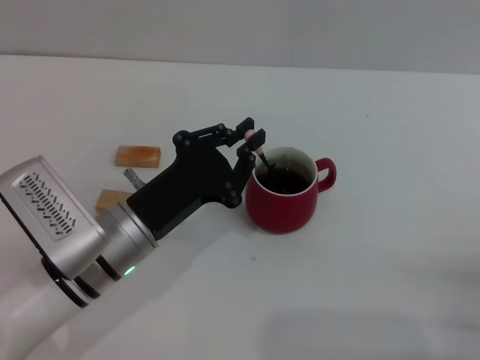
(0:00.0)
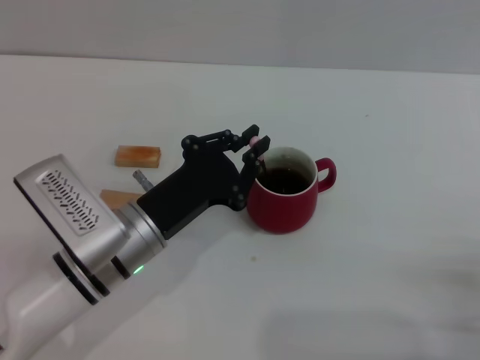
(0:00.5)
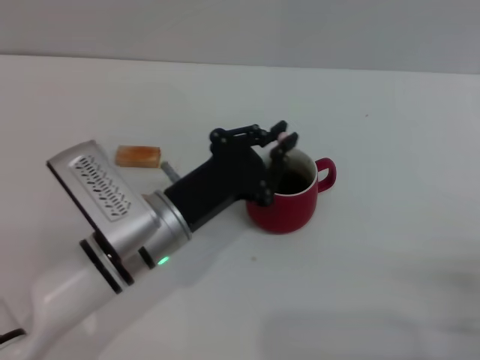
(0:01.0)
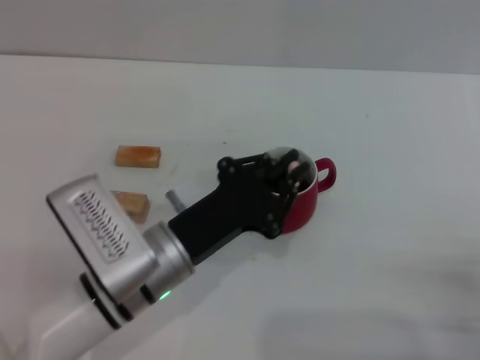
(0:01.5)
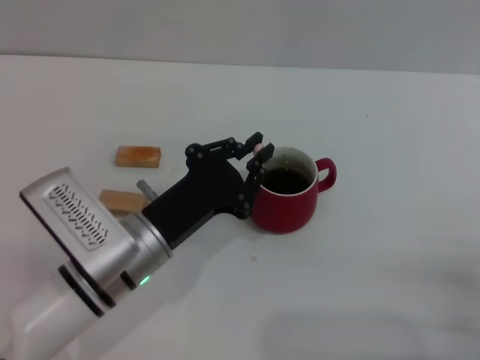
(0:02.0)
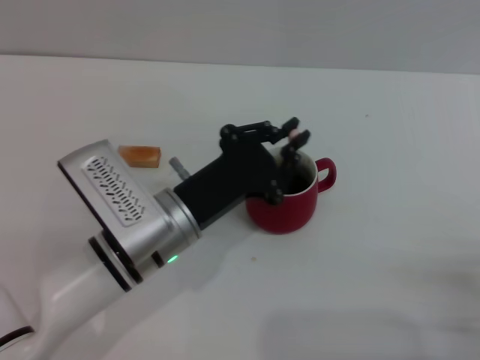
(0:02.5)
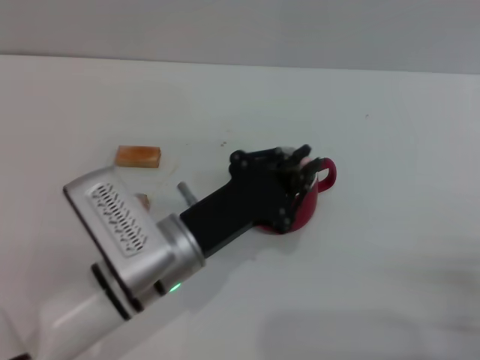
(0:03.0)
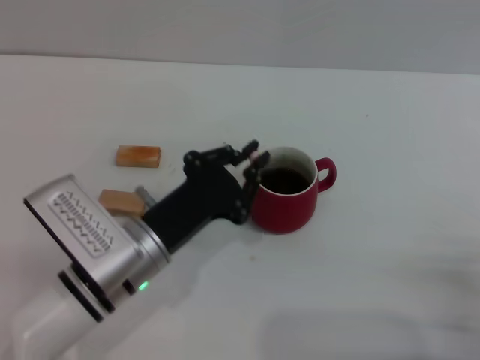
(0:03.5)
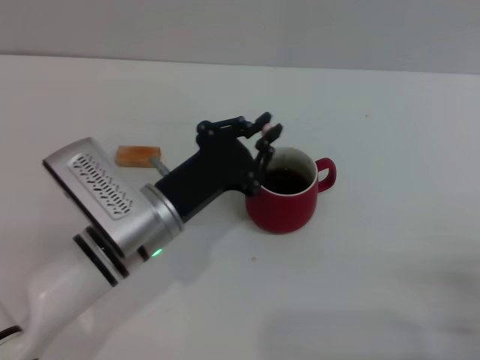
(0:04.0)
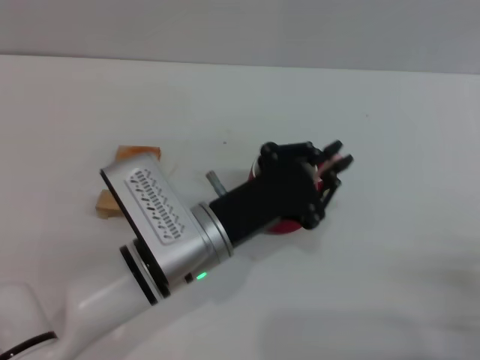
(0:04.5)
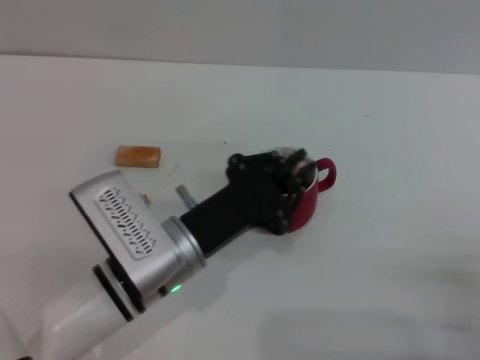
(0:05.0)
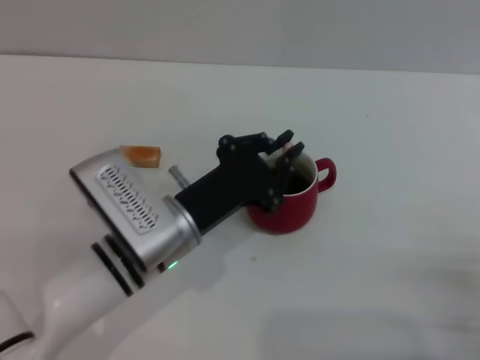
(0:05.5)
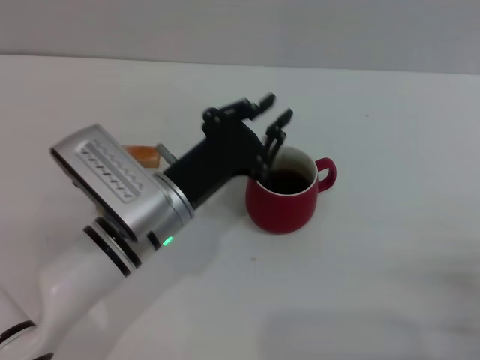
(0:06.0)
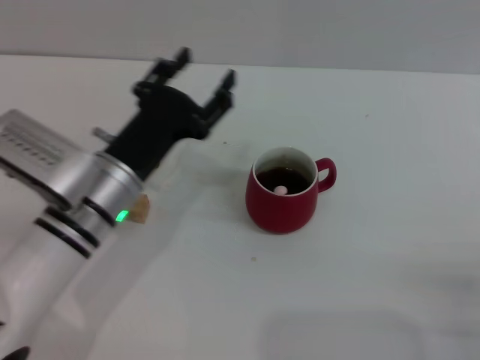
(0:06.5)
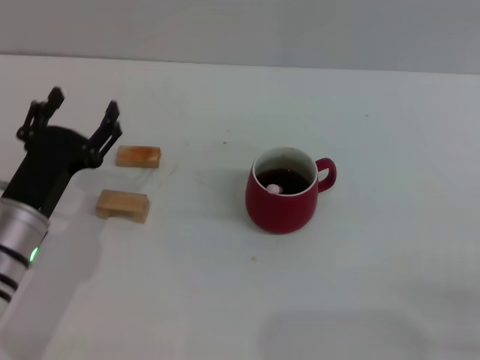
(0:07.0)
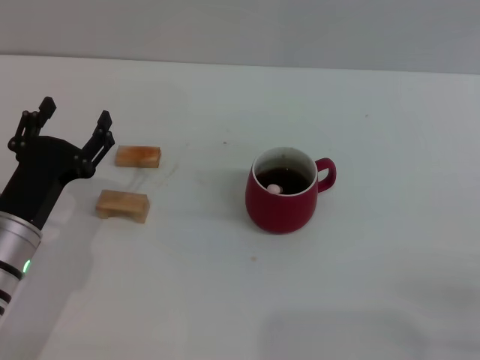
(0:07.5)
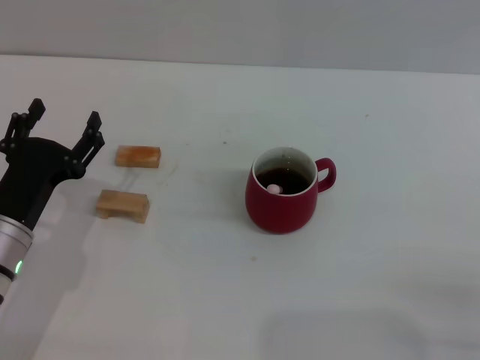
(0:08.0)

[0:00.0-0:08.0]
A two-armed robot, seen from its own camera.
Task of the whole recording: Move the red cup to the center, lift the pink spoon, stir it three times in the cup, and put the spoon into the cup.
Step, 0:00.0 to 0:06.5: Stir the coffee in the cup with the left gripper.
0:00.0 to 0:04.0: The grippers move only a little.
0:04.0 to 0:06.0: There are only small adjustments of the grippers.
0:06.0 to 0:08.0: The left gripper moves to the left, approximately 15 cm, and opens up.

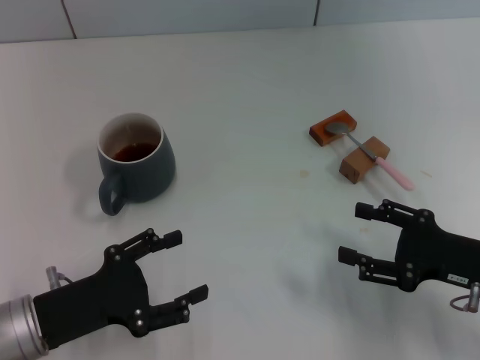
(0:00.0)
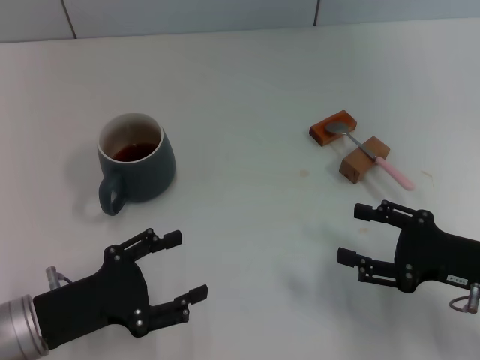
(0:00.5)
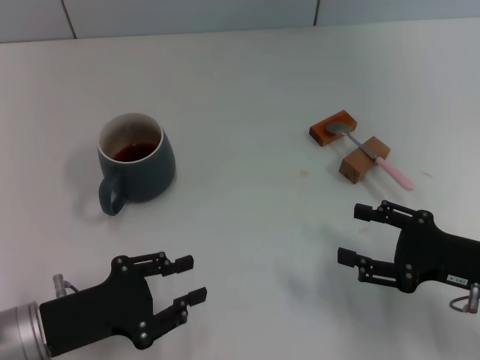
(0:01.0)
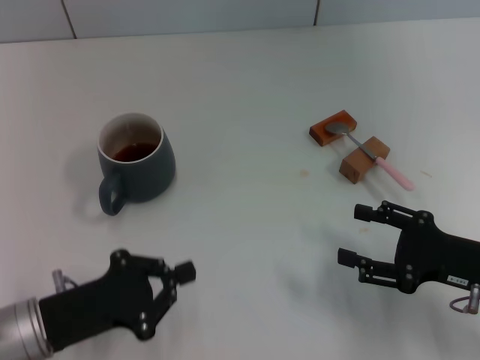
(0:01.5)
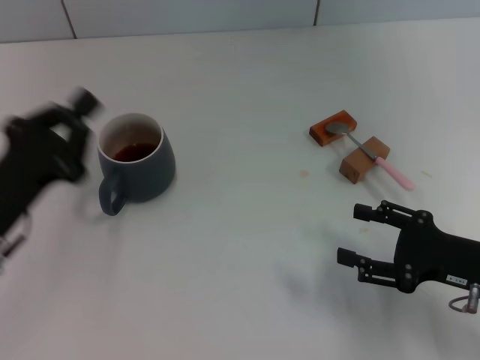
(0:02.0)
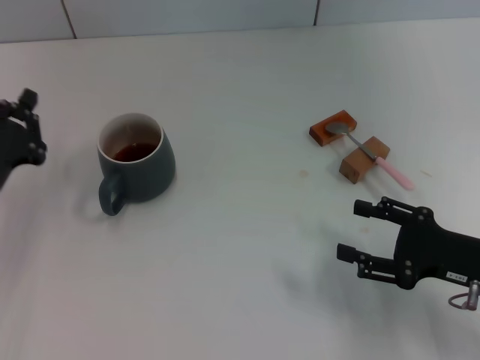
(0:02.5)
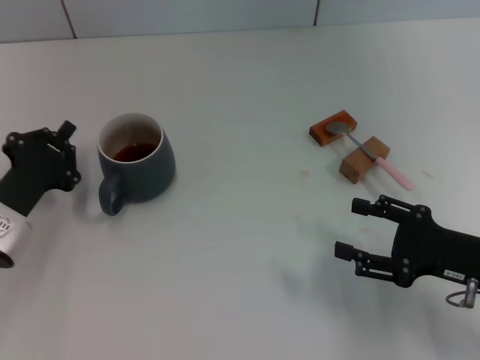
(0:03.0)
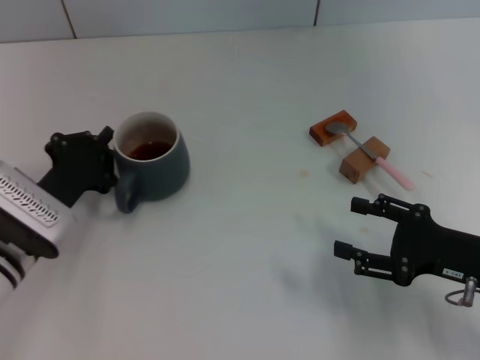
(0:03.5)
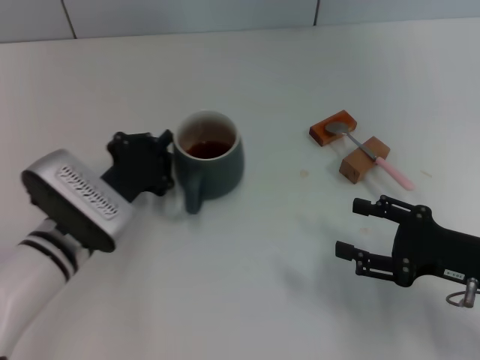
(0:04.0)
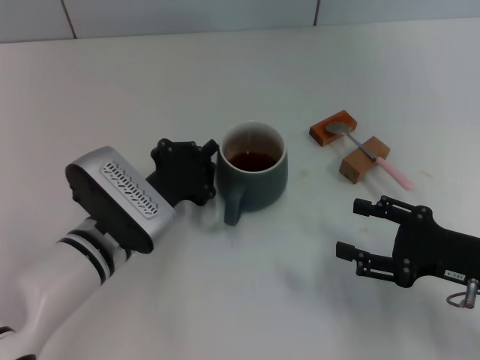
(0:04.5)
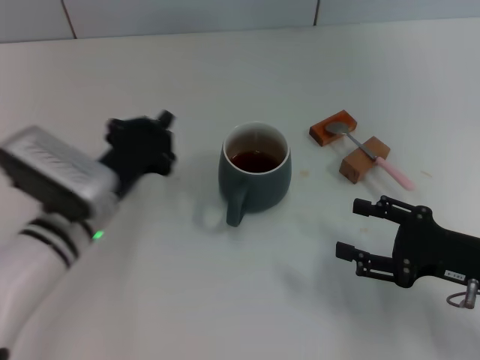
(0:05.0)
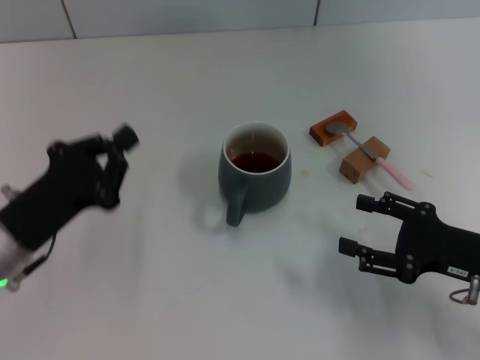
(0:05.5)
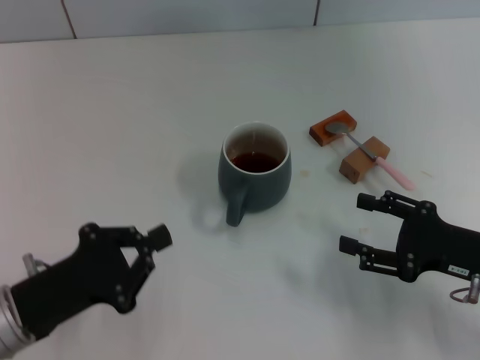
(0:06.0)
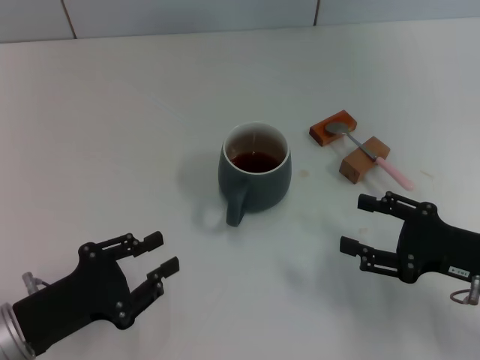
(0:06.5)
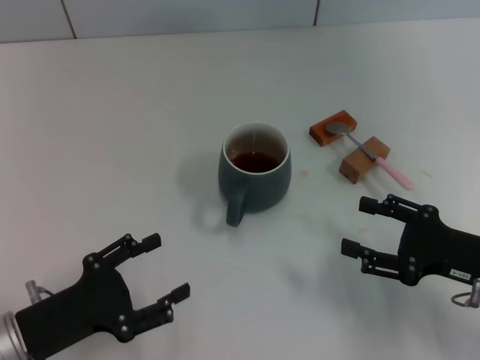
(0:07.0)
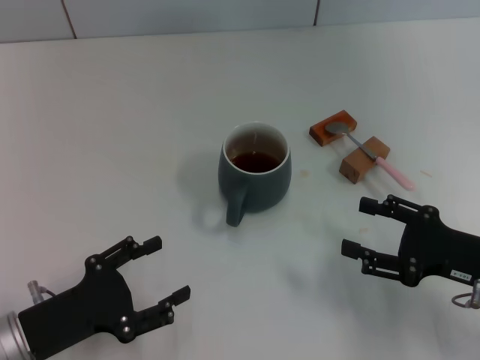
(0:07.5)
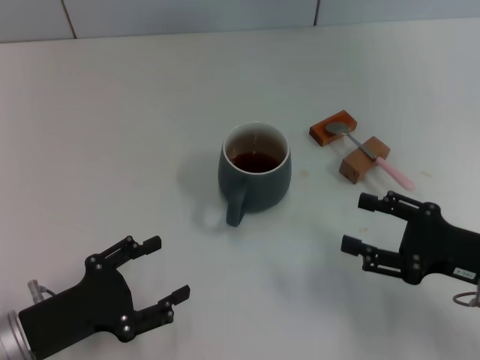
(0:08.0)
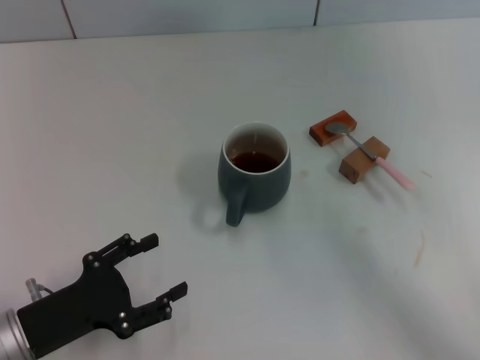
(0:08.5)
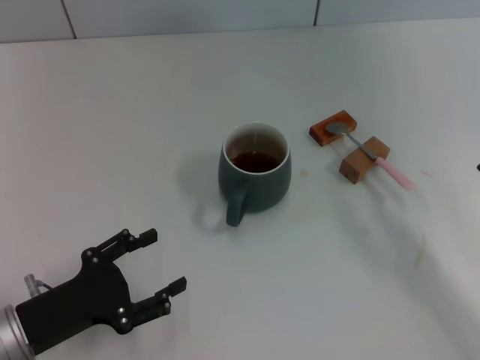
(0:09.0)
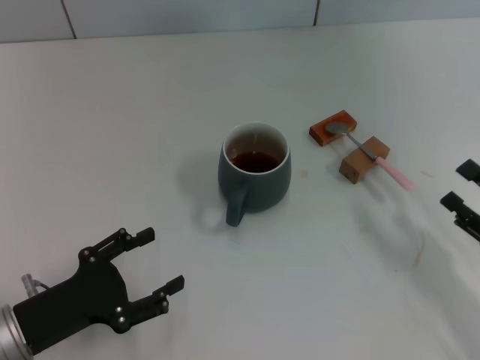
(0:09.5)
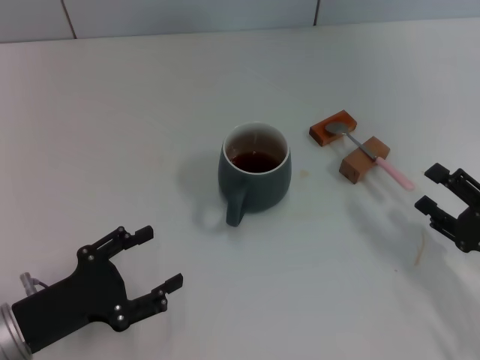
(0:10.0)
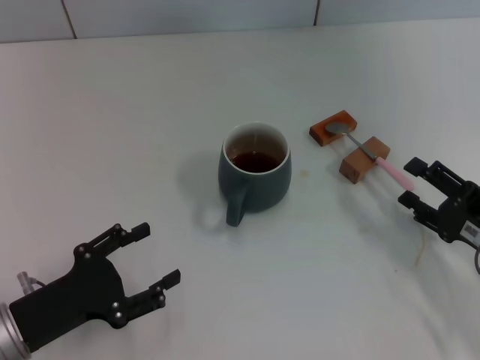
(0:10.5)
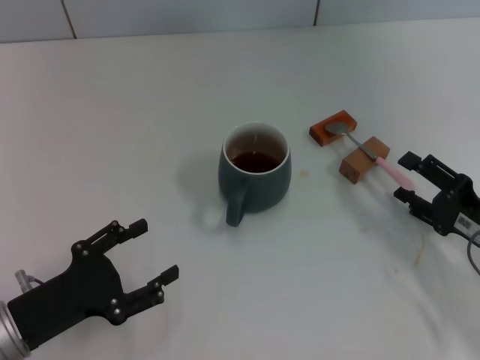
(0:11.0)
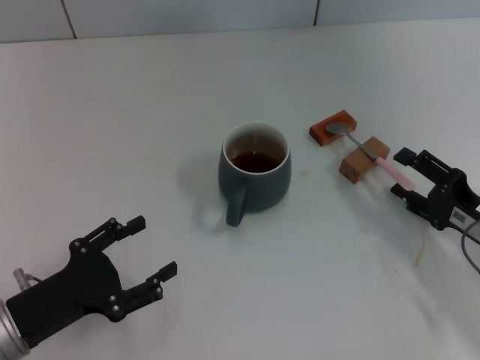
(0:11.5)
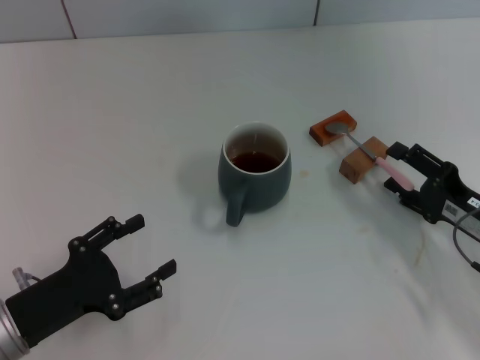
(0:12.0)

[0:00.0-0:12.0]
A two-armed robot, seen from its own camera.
Task of the whole recording: Move the grey cup to the center, lift the pink spoon, stir it three times in the cup, and put the spoon into the cup.
Step, 0:00.0 to 0:05.5: Move the cup with coffee to the center of view with the left gripper.
0:00.0 to 0:02.0: The left gripper changes place by some 5 cm, and closes.
0:02.0 to 0:04.0: The left gripper is displaced to the right by approximately 10 cm.
0:04.0 to 0:06.0: The left gripper moves backward and to the left, some 10 cm.
0:06.0 to 0:08.0: The left gripper opens its fingers.
0:10.0 to 0:12.0: The right gripper shifts by roughly 5 cm.

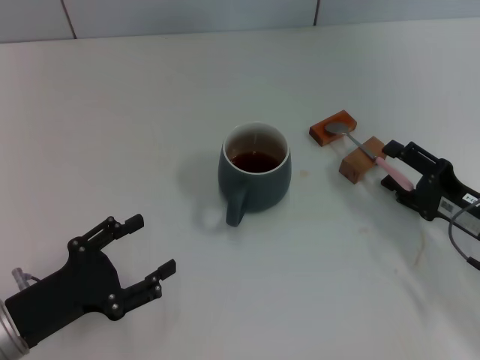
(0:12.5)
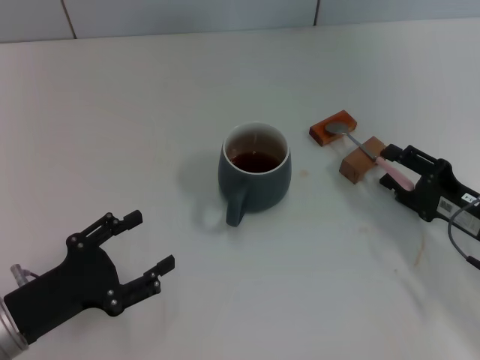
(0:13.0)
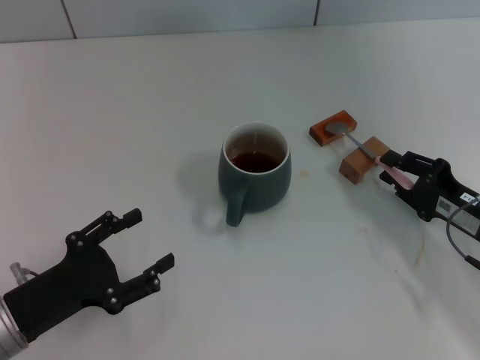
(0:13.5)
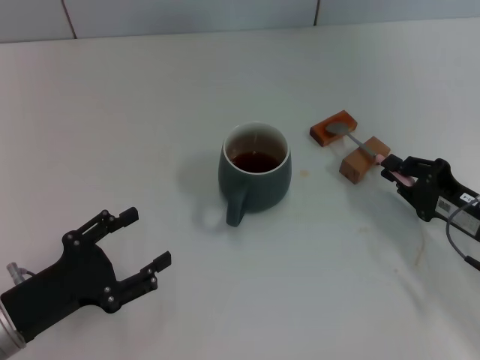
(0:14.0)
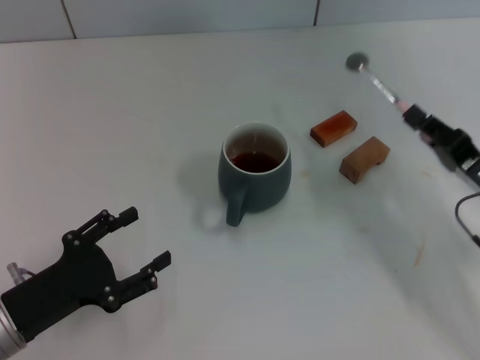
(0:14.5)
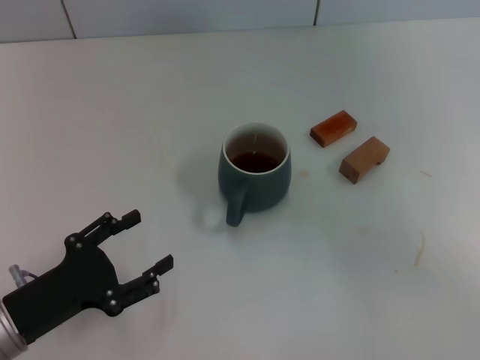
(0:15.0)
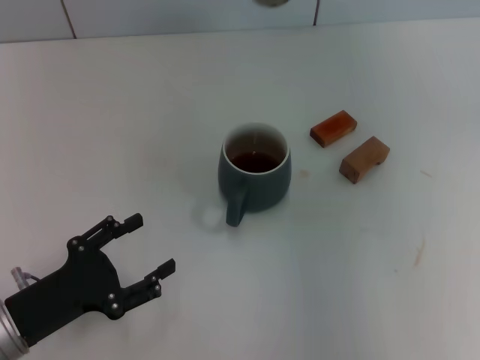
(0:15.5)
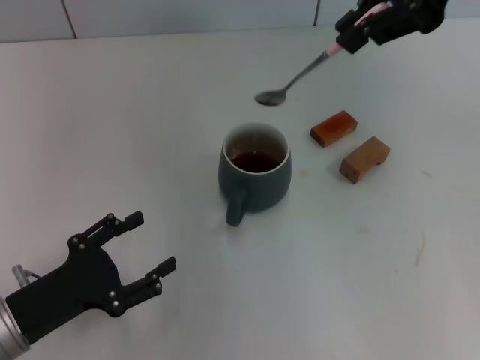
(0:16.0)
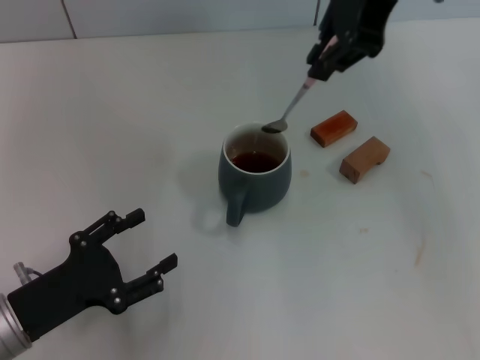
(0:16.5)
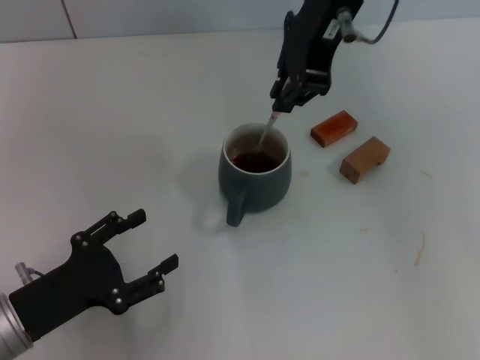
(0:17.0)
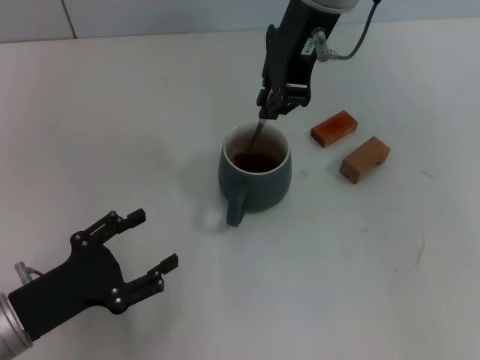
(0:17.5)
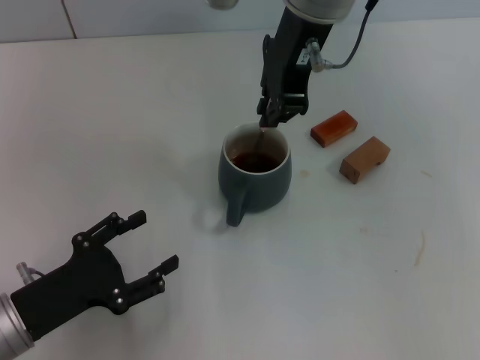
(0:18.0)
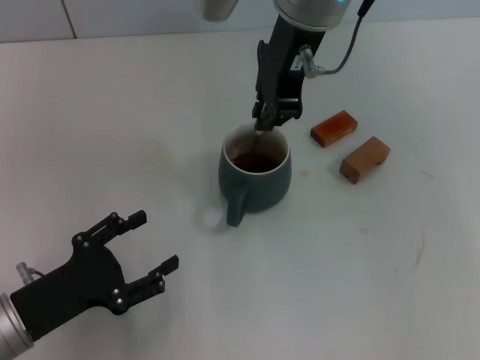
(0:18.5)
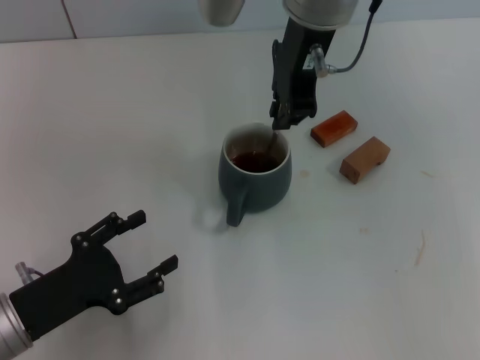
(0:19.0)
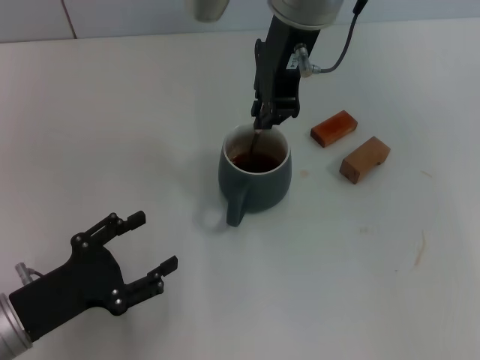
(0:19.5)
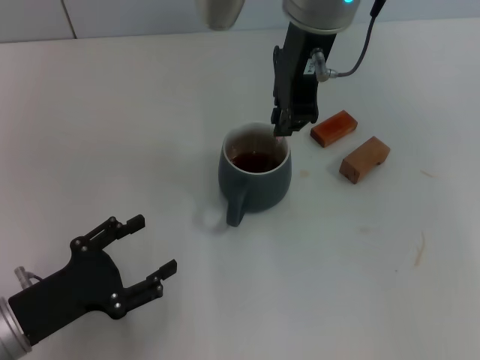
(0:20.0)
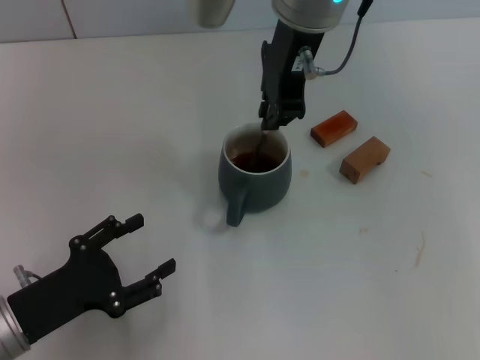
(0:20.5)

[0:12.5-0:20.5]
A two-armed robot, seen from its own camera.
Task of the whole recording: Move the grey cup to the center, lift the pink spoon, stir it three times in the cup, and put the spoon into the cup.
0:12.5 to 0:14.5: The right gripper closes up.
0:14.5 to 0:16.5: The right gripper travels upward, to the left and forward by about 40 cm.
0:16.5 to 0:18.5: The right gripper shifts some 10 cm to the left and downward.
0:18.5 to 0:20.5: The grippers make only small movements.
